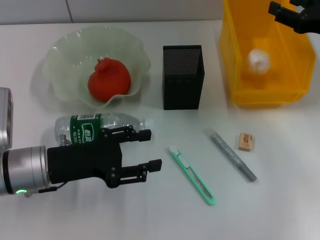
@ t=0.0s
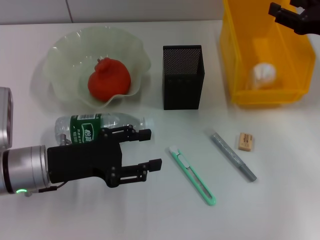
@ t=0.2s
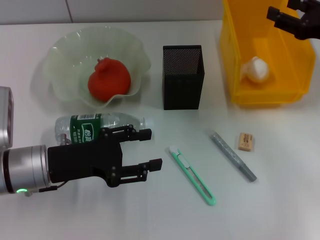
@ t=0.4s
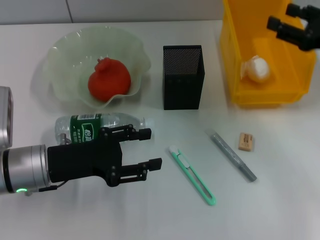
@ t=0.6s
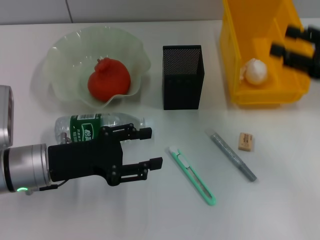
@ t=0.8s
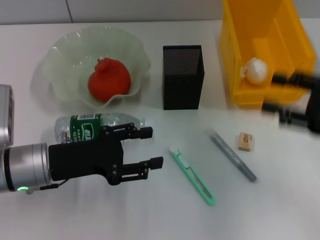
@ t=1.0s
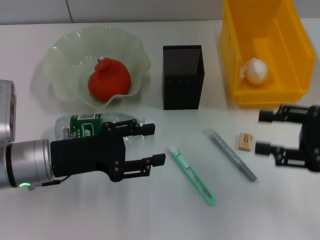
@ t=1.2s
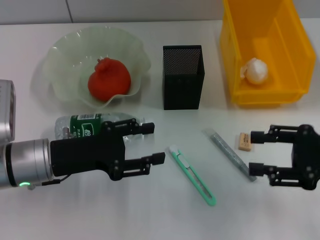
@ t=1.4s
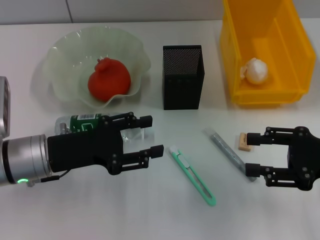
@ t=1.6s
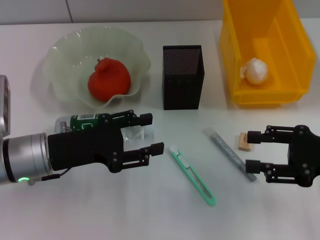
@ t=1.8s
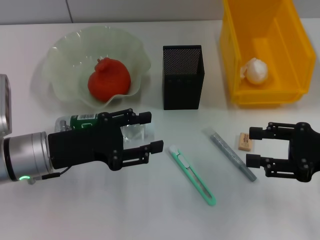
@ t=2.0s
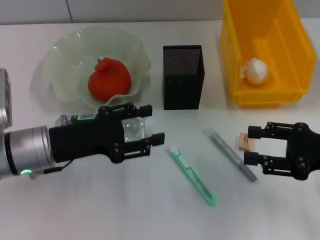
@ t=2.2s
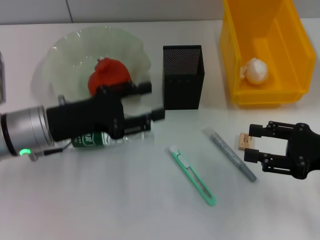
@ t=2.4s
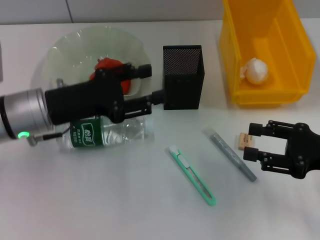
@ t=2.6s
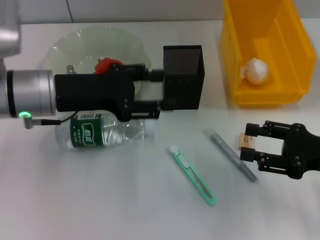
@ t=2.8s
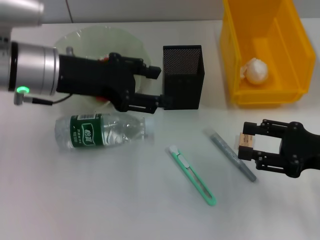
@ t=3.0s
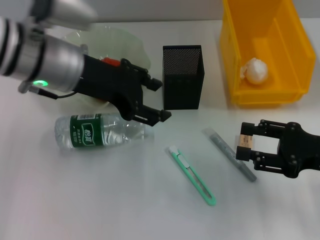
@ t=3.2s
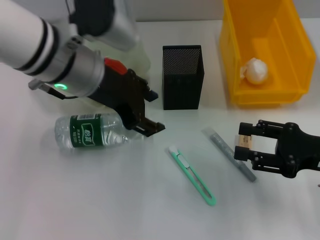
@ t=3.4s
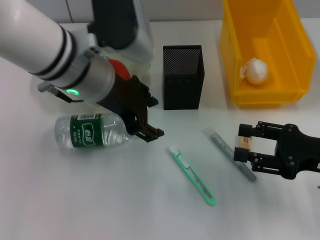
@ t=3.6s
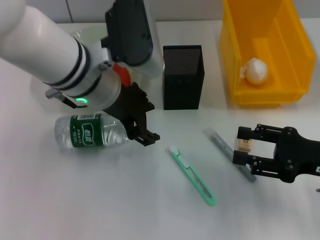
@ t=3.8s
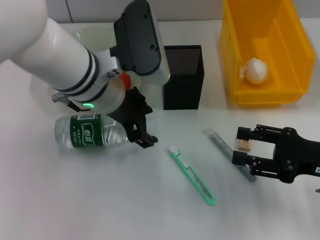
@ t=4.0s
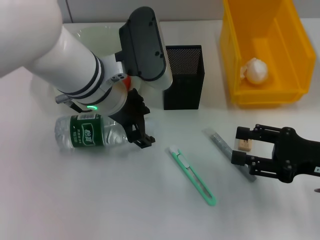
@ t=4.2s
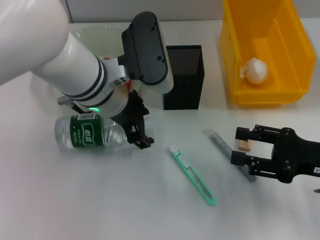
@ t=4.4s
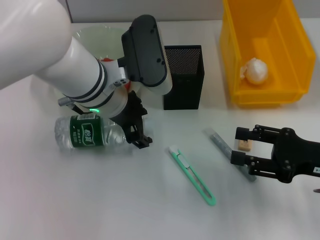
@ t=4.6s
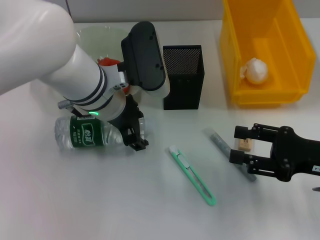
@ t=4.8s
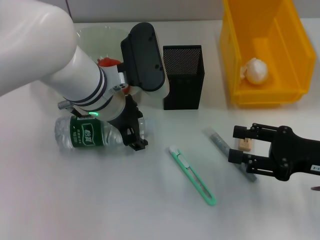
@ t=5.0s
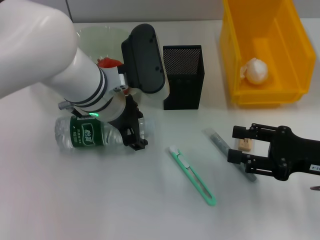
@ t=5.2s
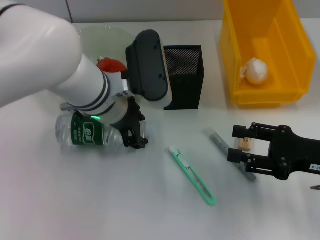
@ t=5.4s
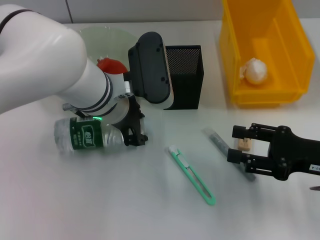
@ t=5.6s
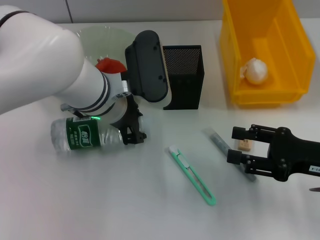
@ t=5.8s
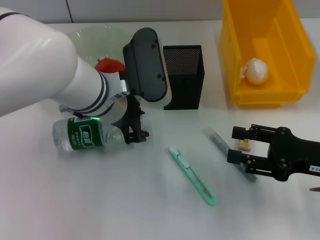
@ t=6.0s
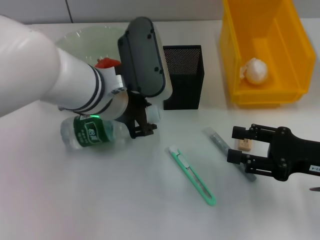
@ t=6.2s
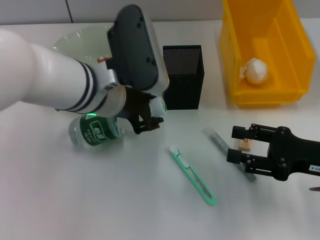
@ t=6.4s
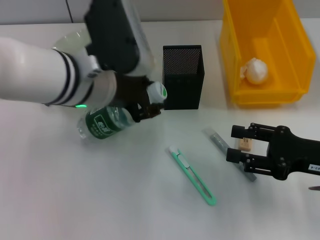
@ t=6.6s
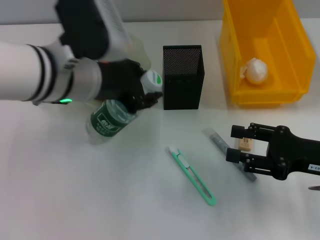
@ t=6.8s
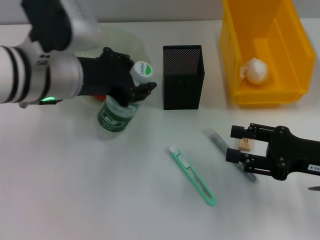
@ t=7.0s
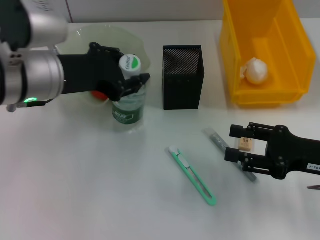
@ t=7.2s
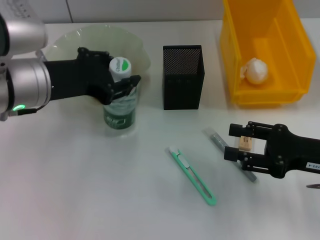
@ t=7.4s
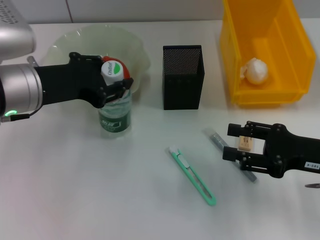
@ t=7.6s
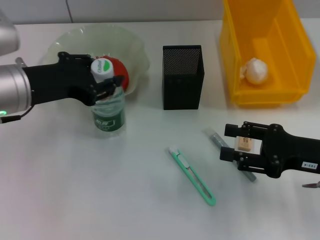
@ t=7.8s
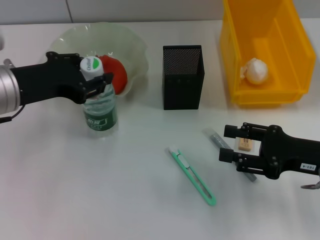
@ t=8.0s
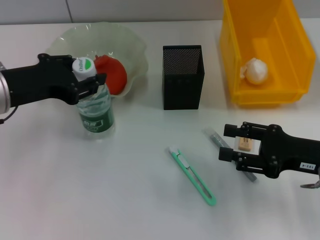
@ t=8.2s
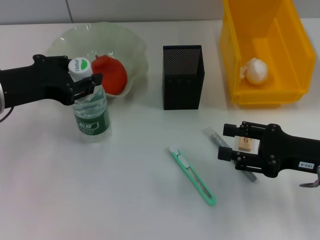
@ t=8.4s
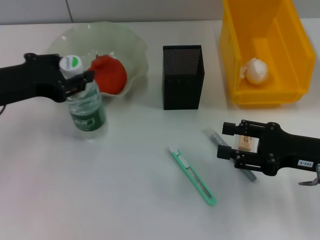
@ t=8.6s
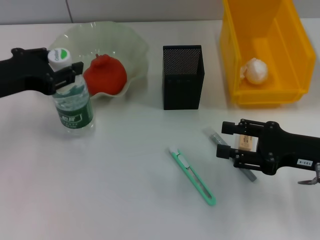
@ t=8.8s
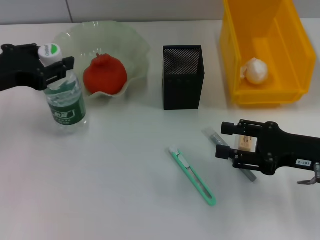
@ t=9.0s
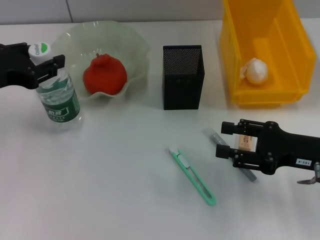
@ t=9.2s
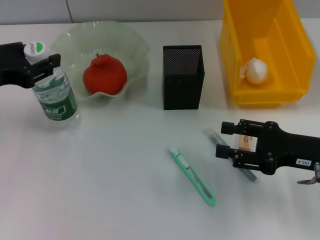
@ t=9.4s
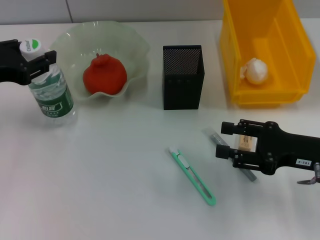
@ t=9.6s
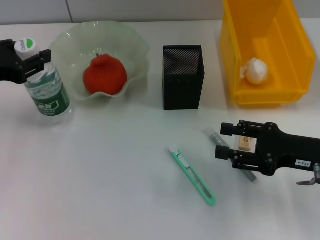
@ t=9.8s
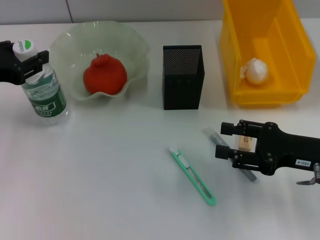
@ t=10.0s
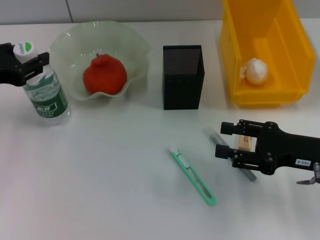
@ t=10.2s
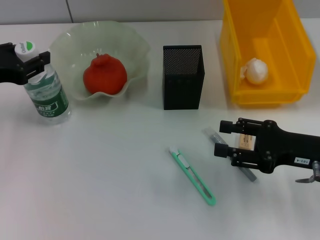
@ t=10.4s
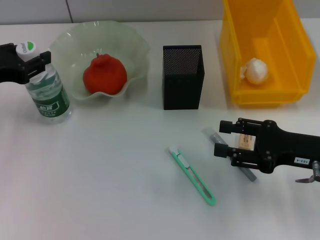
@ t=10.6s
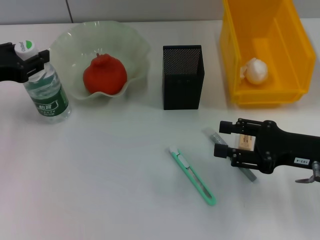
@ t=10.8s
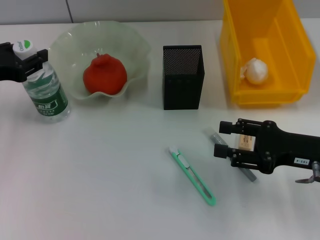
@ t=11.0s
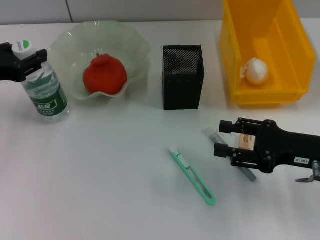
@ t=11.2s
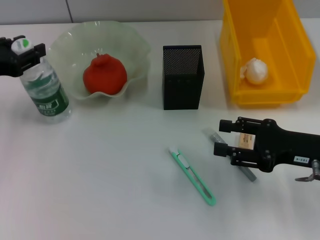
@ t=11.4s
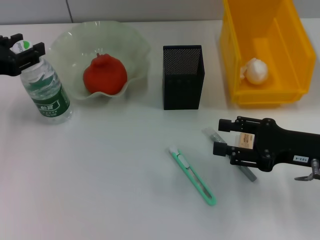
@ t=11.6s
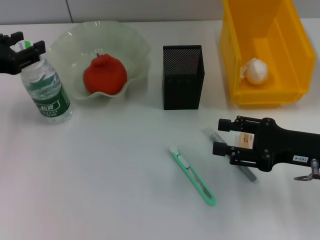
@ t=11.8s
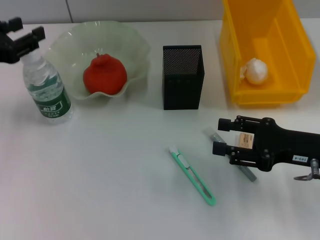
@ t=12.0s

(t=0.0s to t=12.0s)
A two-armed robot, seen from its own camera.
Step, t=0.4s - t=5.6s: Grab the water bottle with the left hand.
Step, t=5.8s - t=11.8s: Place the water bottle on the table with the left hand.
t=0.0s - t=1.6s: The right gripper heads backward, covering approximately 15 cm.
t=1.6s - t=3.0s: The left gripper is displaced upward and forward by approximately 15 cm.
t=3.0s - t=4.4s: The left gripper is displaced to the right by some 10 cm.
t=4.4s - t=6.0s: The left gripper closes its fingers.
t=6.0s - t=7.6s: The left gripper travels to the left by some 10 cm.
t=7.6s - t=9.0s: The left gripper travels to the left by roughly 5 cm.
t=9.0s - t=12.0s: The grippers make only small movements.

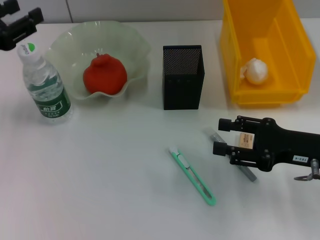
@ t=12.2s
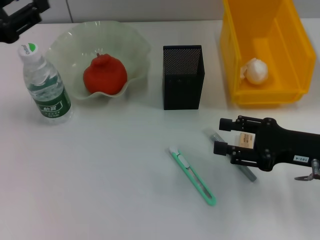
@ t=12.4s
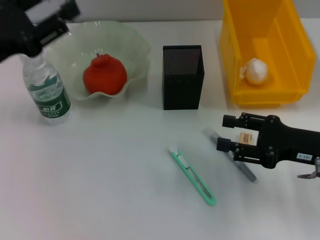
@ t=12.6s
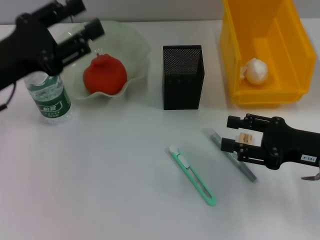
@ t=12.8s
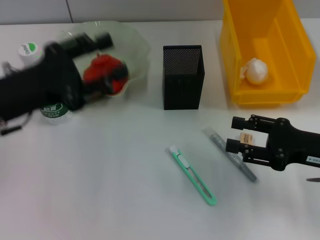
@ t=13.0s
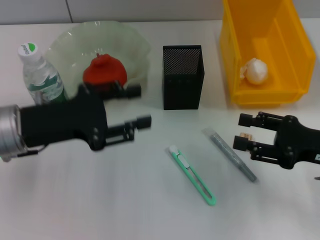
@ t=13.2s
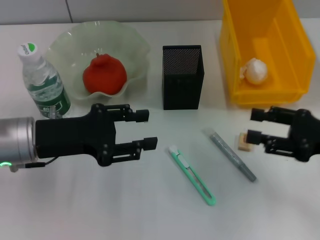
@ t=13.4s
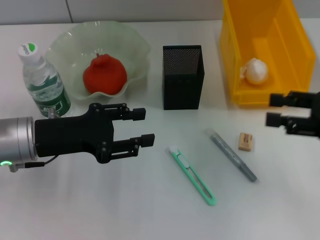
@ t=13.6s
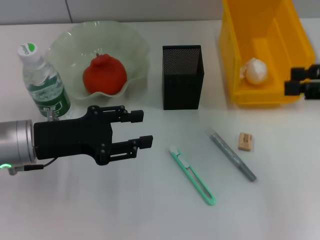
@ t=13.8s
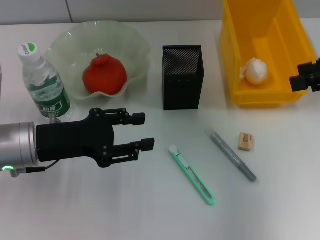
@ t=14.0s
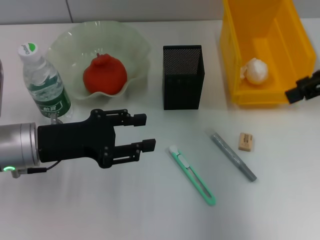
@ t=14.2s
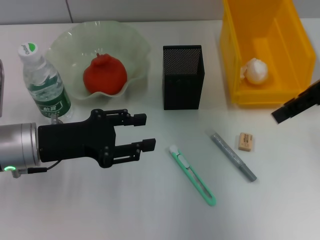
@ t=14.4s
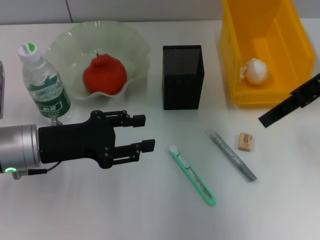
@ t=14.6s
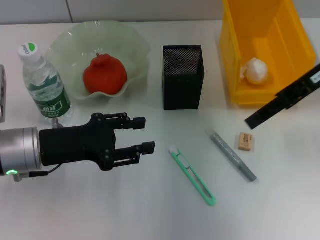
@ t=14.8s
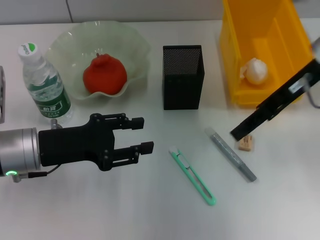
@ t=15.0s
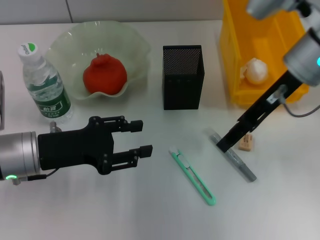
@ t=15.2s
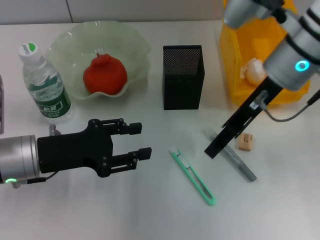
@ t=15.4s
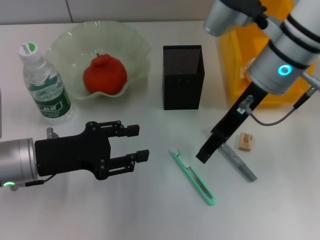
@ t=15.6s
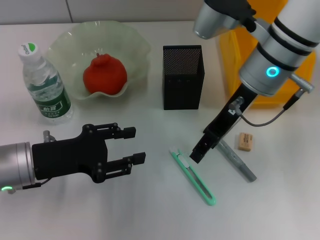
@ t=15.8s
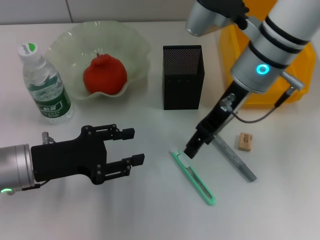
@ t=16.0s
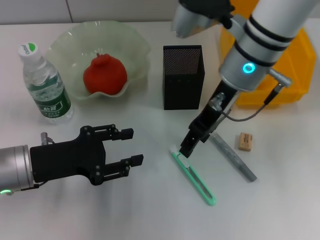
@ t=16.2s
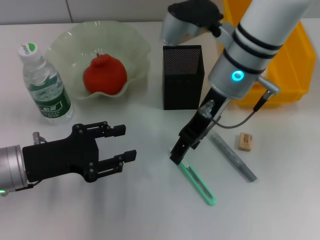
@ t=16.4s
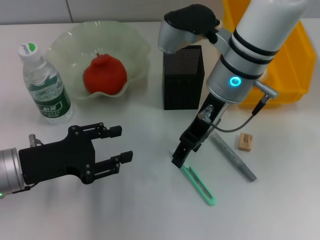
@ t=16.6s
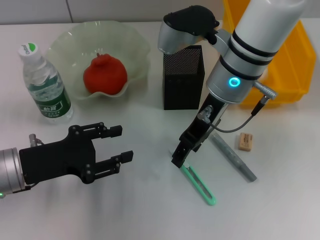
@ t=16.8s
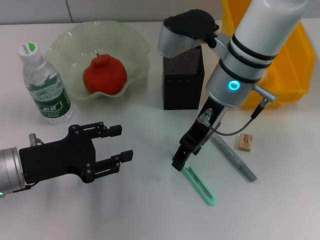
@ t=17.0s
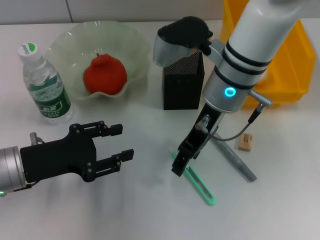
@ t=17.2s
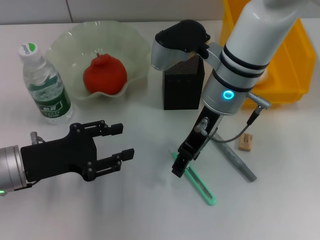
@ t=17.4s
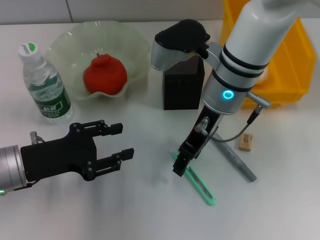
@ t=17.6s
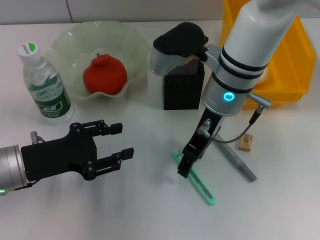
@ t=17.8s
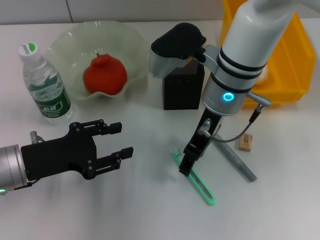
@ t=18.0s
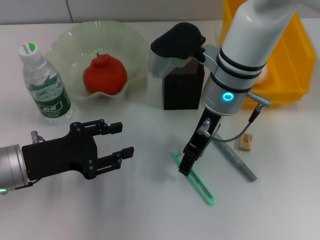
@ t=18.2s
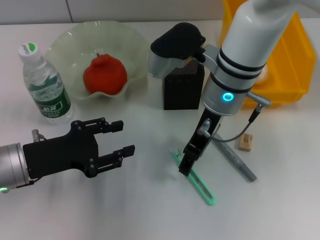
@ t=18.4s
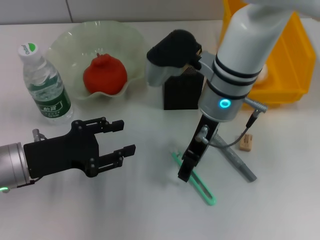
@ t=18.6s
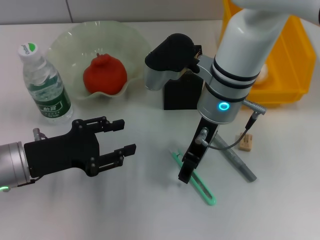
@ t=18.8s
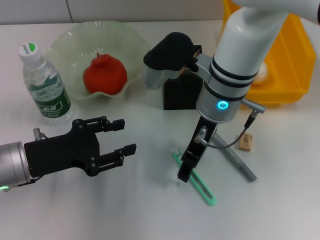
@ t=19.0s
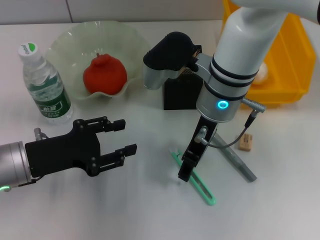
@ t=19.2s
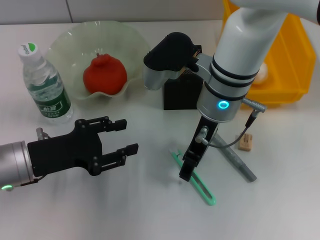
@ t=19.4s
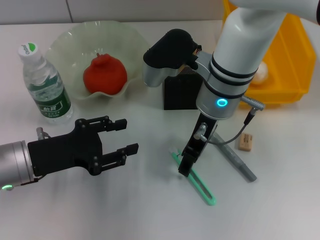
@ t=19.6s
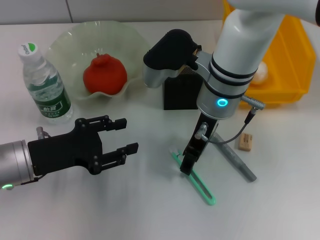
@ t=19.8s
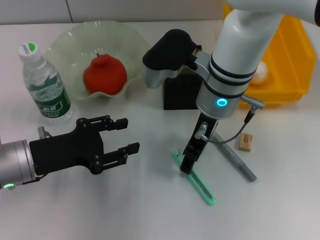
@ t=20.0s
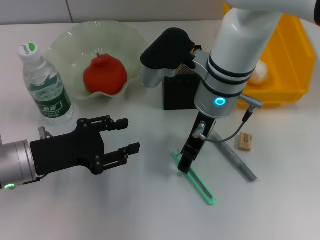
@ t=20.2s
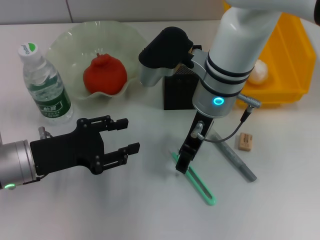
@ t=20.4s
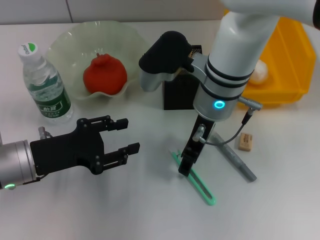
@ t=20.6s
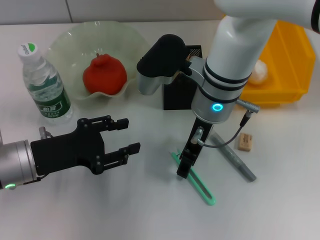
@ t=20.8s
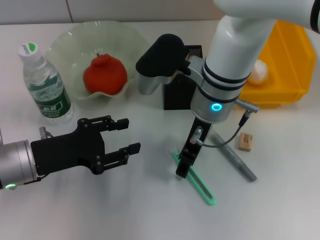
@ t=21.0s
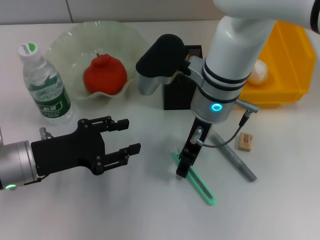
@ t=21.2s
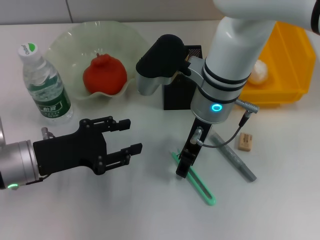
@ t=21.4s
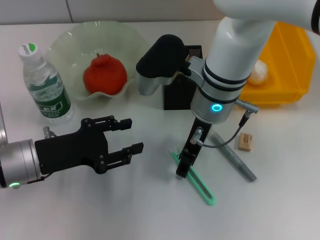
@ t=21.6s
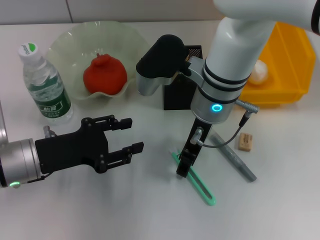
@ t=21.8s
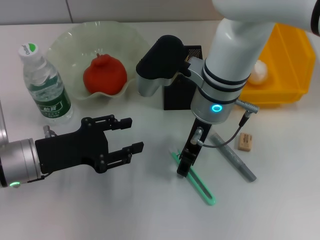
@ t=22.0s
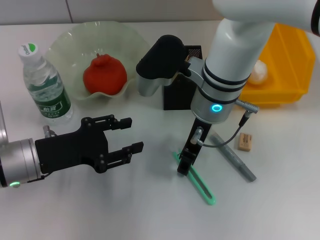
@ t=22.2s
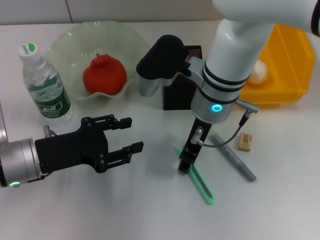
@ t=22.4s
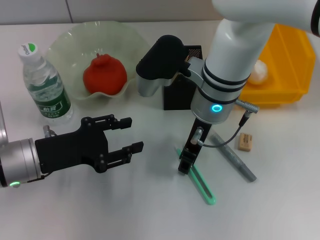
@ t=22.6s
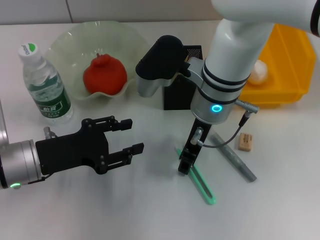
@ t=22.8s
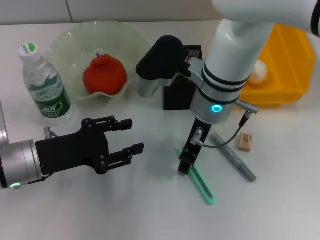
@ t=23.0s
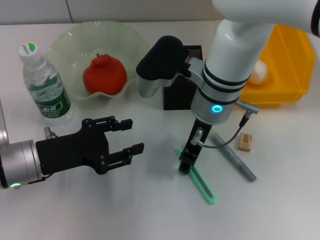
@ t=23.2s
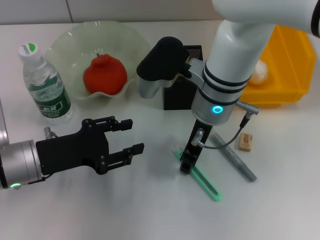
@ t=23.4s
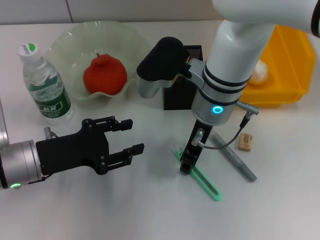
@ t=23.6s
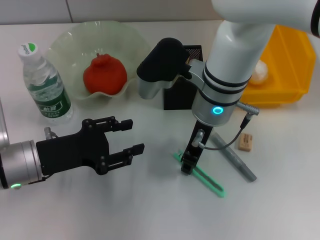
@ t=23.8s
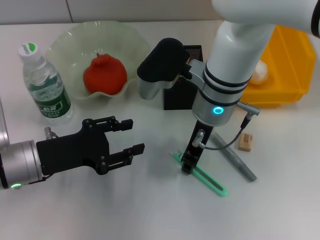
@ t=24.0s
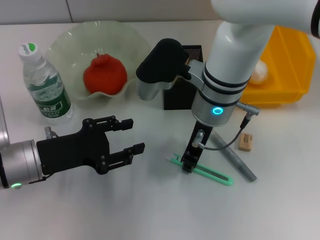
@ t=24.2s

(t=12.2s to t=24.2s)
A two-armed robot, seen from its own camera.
t=12.2s - t=13.8s: The right gripper is displaced upward and to the right by some 15 cm. Meanwhile the left gripper shifts roughly 10 cm to the right and downward.
t=13.8s - t=15.2s: The right gripper heads to the left and forward, covering approximately 15 cm.
t=15.2s - t=16.6s: The right gripper travels to the left by about 10 cm.
t=16.6s - t=19.8s: The grippers move only a little.
t=19.8s - t=24.2s: The two grippers keep their place.
